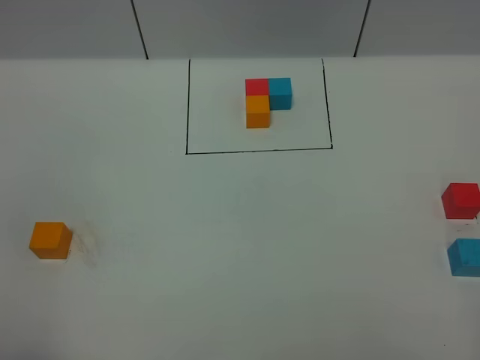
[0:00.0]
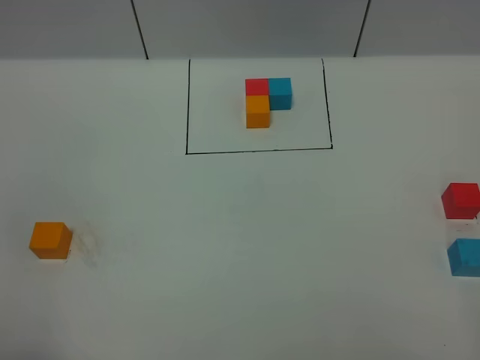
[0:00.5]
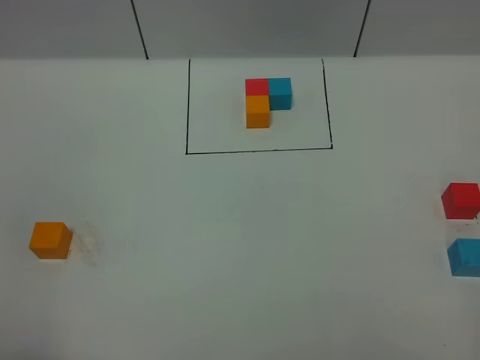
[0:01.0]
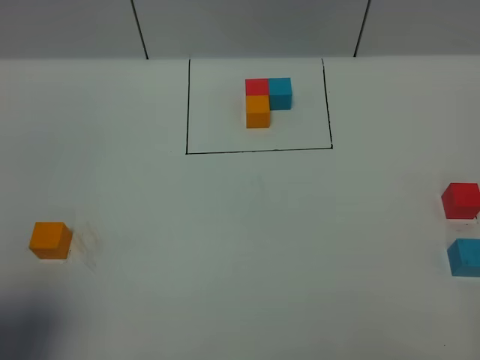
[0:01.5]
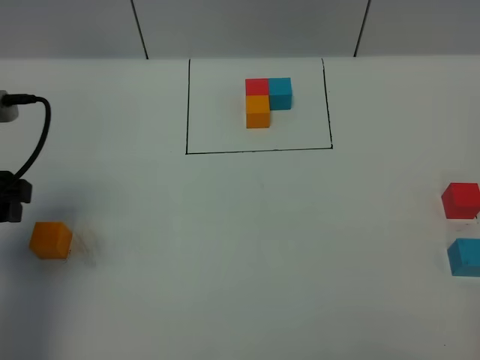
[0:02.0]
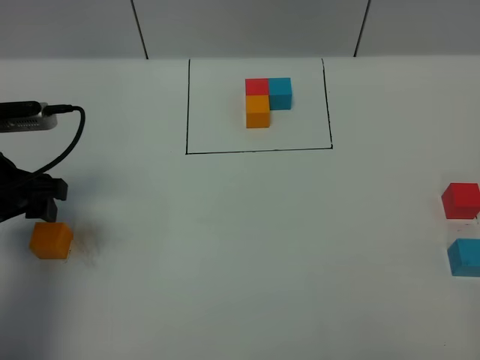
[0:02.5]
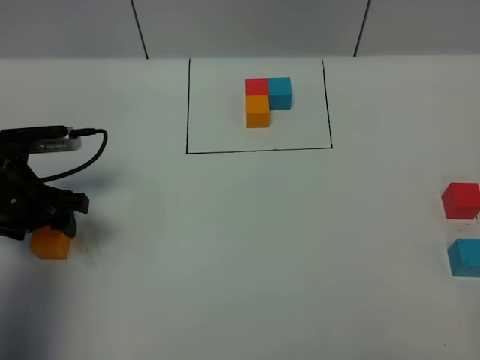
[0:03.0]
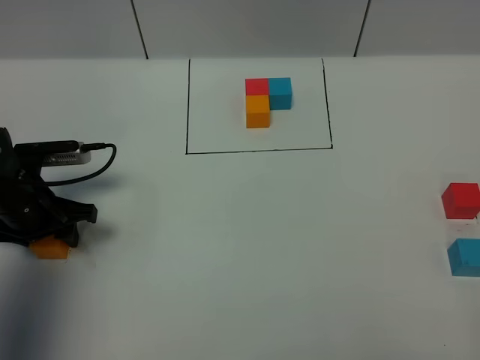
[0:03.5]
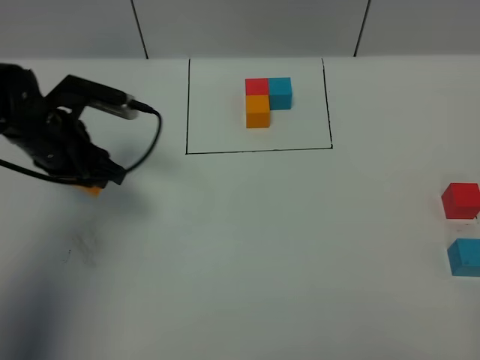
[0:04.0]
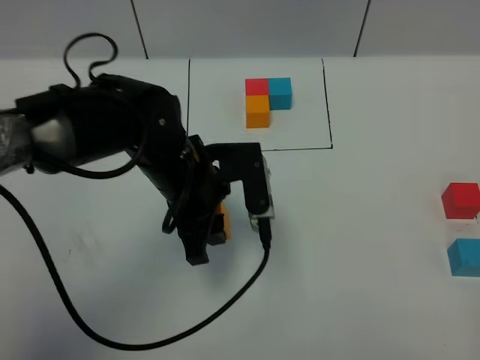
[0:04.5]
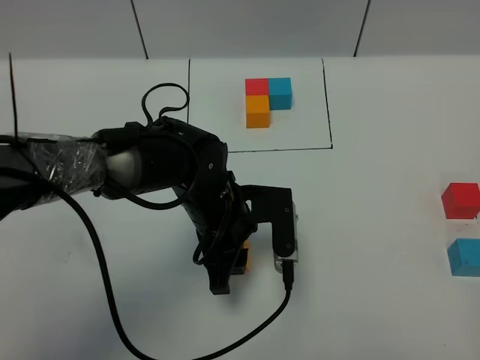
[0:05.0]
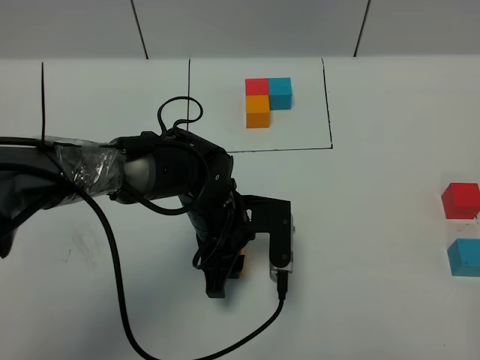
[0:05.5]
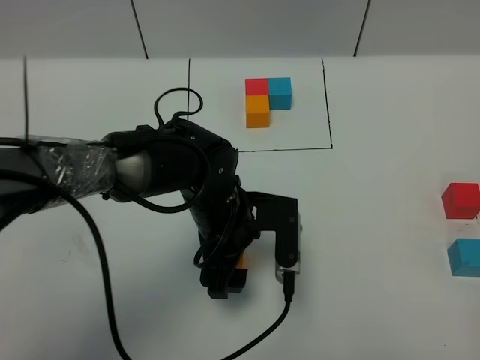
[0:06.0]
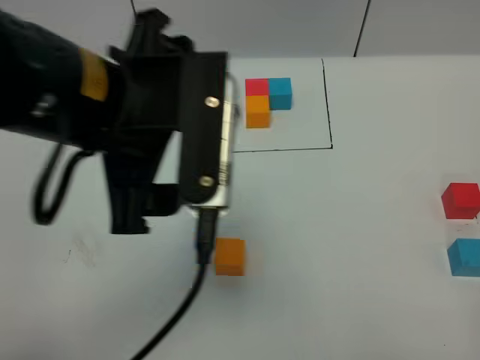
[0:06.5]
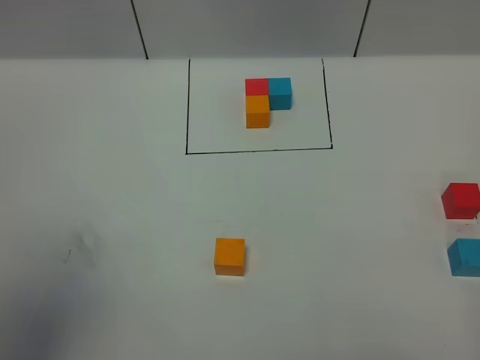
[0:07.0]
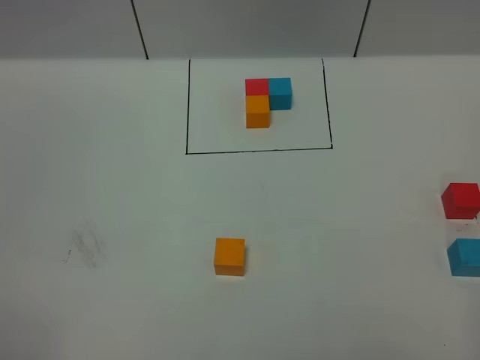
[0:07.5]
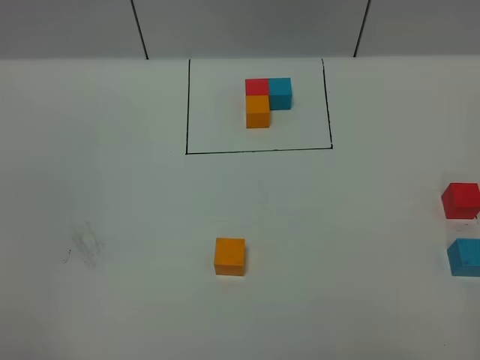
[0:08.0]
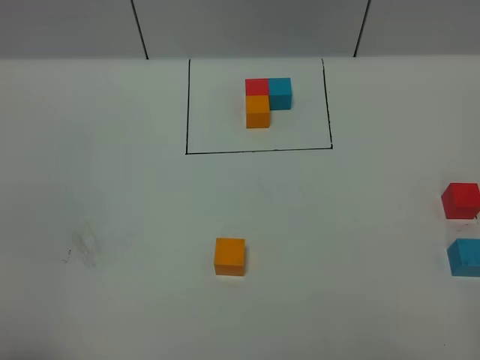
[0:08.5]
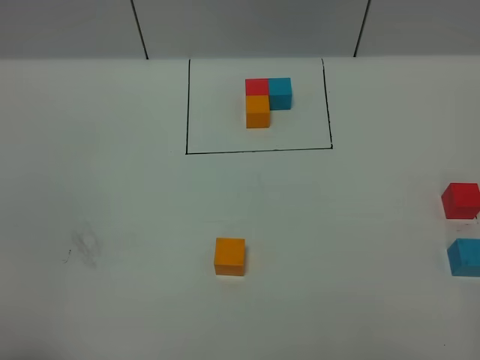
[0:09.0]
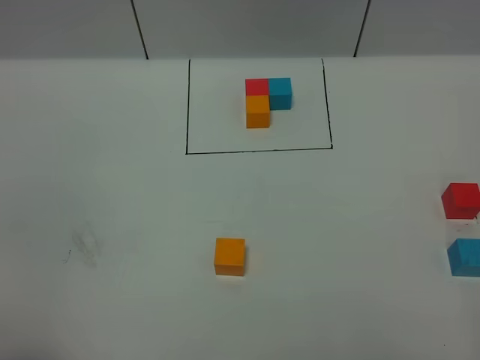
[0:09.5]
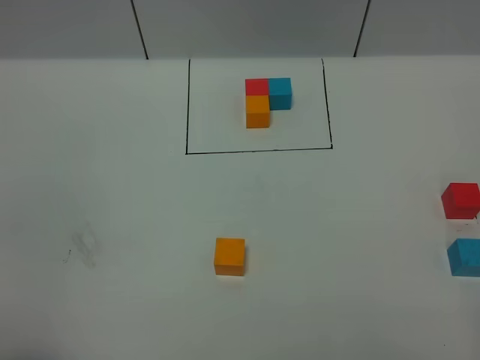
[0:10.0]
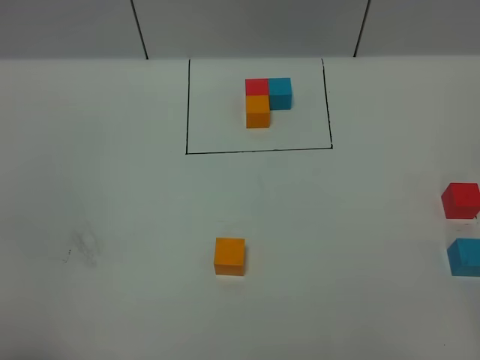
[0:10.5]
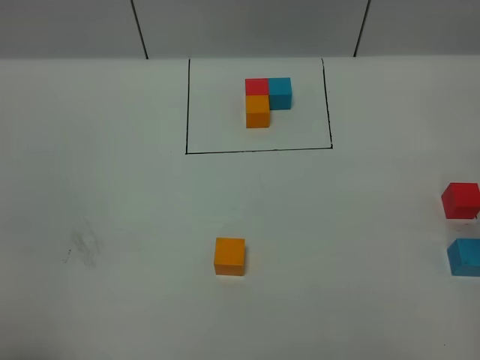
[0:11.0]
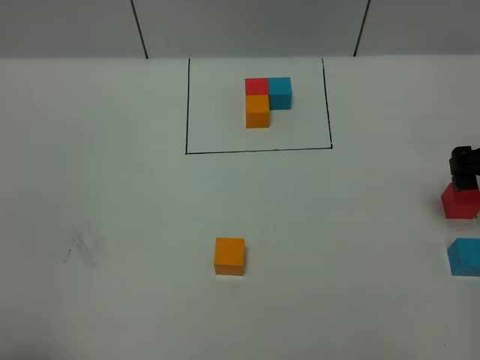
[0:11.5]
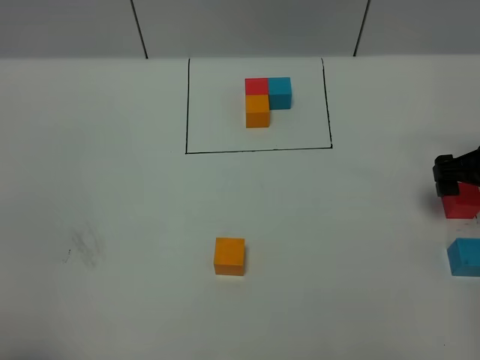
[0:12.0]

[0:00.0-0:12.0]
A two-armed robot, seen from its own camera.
Task of the whole recording: According to the building block template in front, assemble the scattered blocks together.
Step, 0:02.0 to 0:06.0: Put the orange cube in the center of the table.
0:00.0 to 0:02.0: The left gripper shifts some 25 cm forward.
0:02.0 to 0:04.0: The left gripper moves forward, downward and to the right, approximately 15 cm, and closes its fingers.
0:04.0 to 0:06.0: The left gripper shifts approximately 20 cm to the right and backward, and opens its fingers.
0:06.0 to 0:08.0: The left gripper moves backward, to the left and upward, approximately 40 cm.
0:10.0 to 0:12.0: The right gripper moves forward, some 30 cm, and opens its fingers.

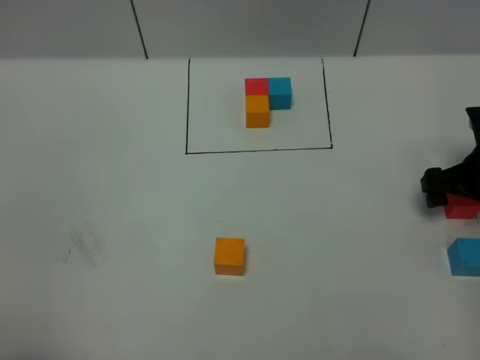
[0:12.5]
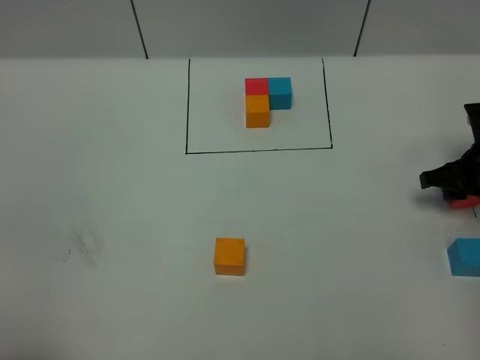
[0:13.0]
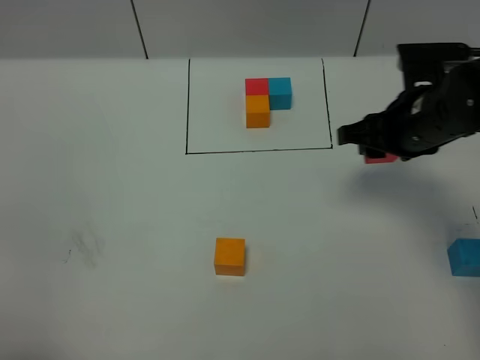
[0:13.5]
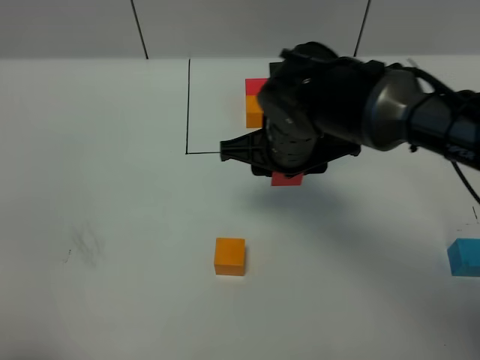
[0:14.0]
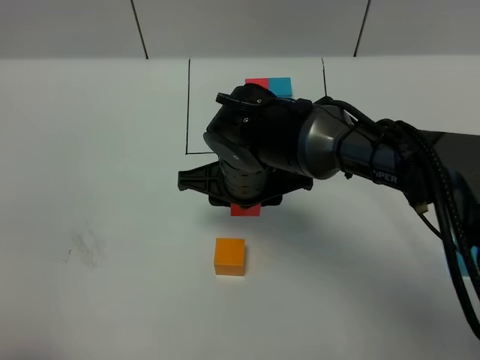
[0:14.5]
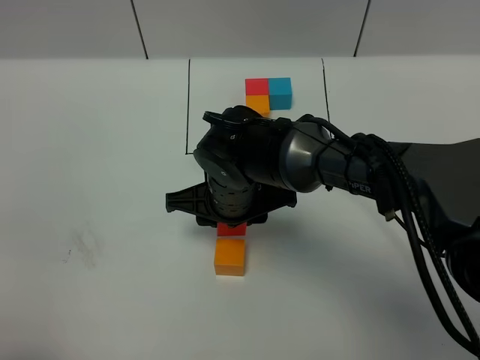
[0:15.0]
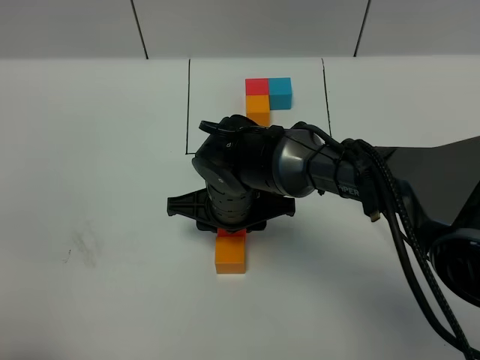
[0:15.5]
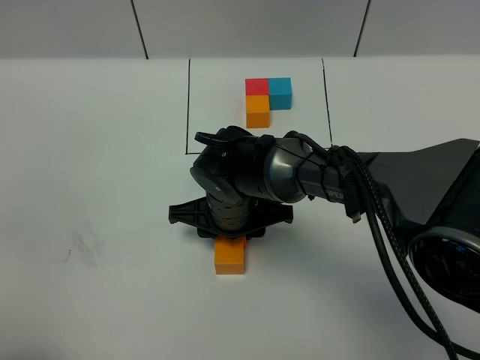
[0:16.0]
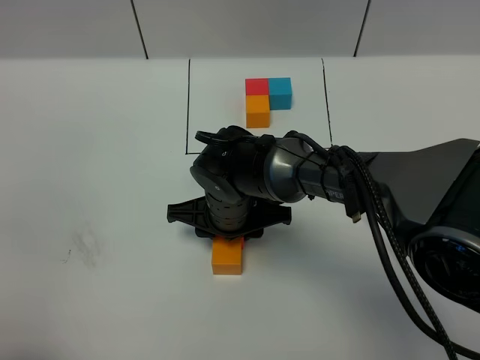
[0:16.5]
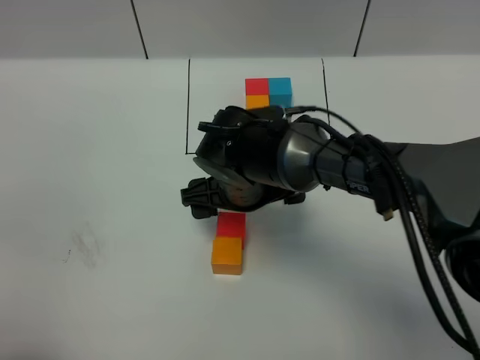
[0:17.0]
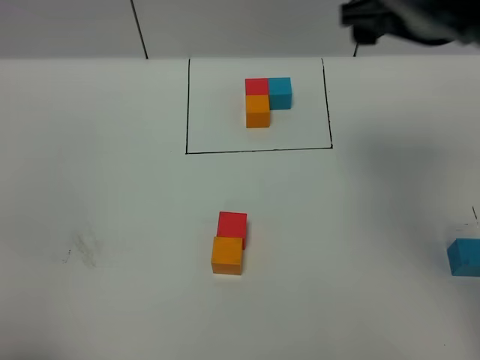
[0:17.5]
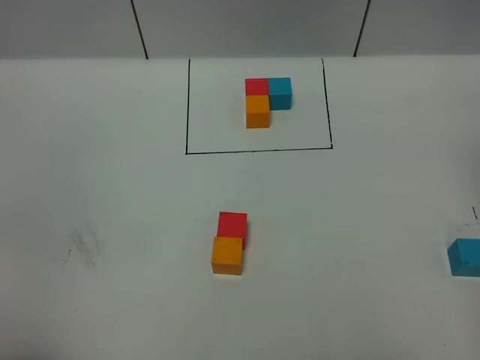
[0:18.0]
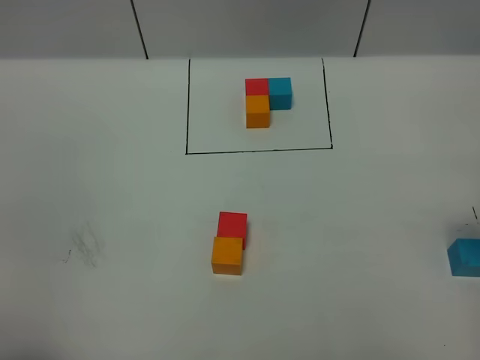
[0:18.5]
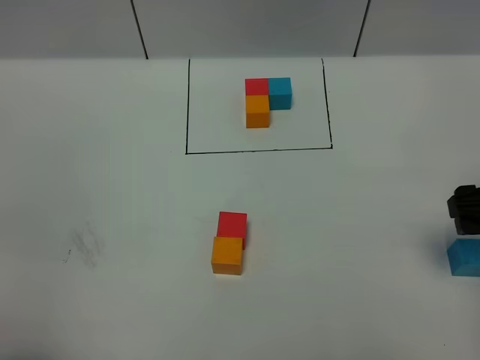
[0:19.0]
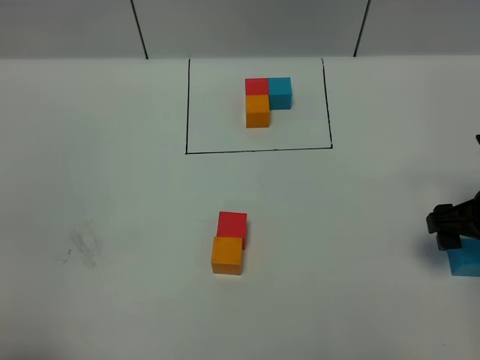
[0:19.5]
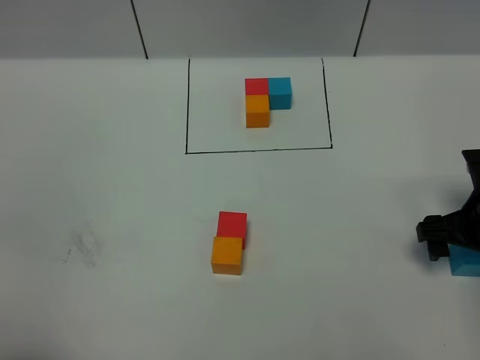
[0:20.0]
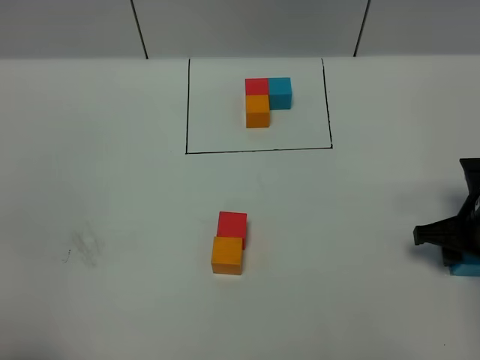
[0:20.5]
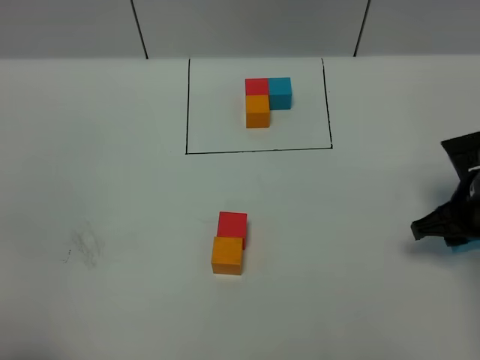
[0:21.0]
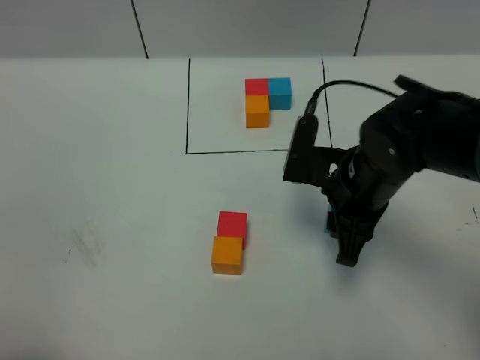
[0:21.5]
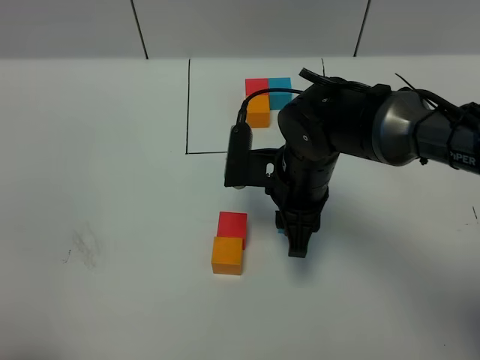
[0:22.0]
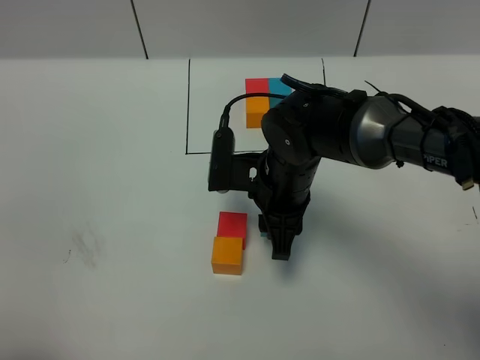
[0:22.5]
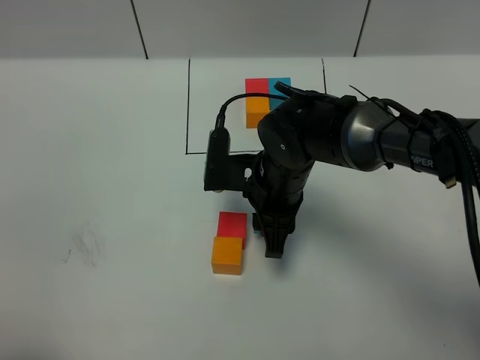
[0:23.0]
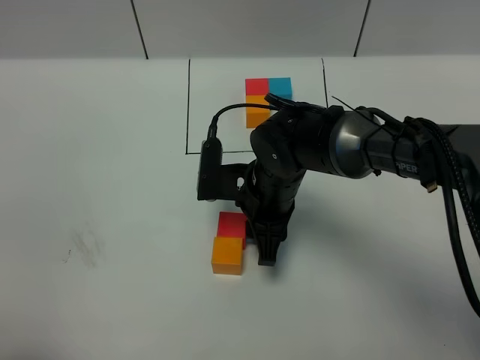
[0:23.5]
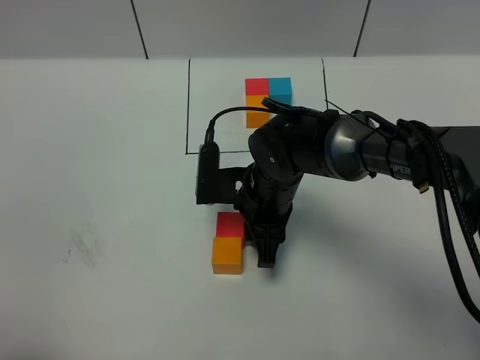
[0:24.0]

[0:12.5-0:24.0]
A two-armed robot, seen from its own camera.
Task of the whole recording: According to the building block template in front, assemble the scattered blocks together.
Step, 0:12.5 to 0:17.0: Put the red cube in the front of the orange cube.
0:12.5 to 0:14.5: The right gripper is displaced to the left by some 30 cm, and closes its fingers.
0:14.5 to 0:16.5: The right gripper moves downward, approximately 5 cm.
0:16.5 to 0:18.5: The right gripper goes roughly 40 cm to the right and upward, and opens its fingers.
0:18.5 to 0:20.0: The right gripper travels downward by roughly 15 cm.
0:20.0 to 0:22.0: The right gripper heads to the left, covering some 25 cm, and closes up.
0:22.0 to 0:24.0: The right gripper moves roughly 5 cm.

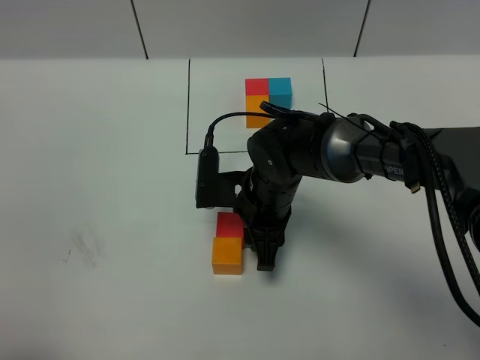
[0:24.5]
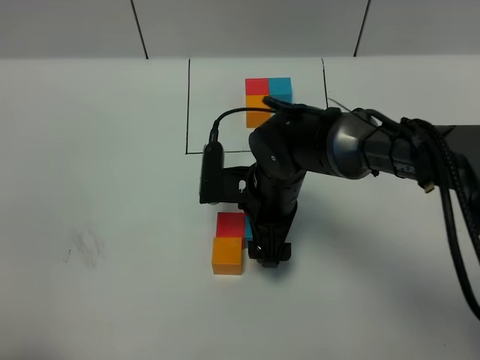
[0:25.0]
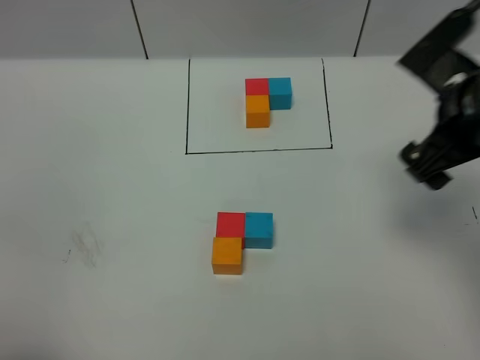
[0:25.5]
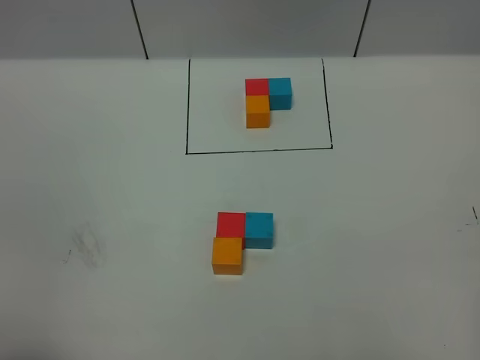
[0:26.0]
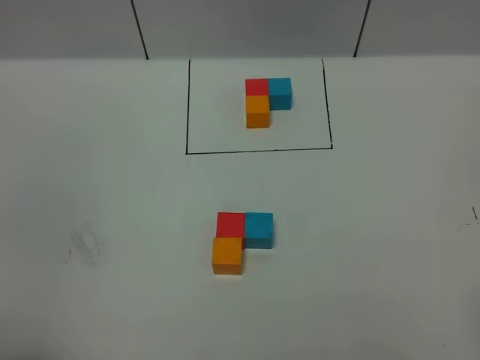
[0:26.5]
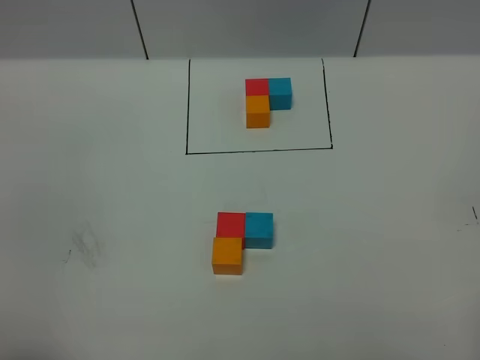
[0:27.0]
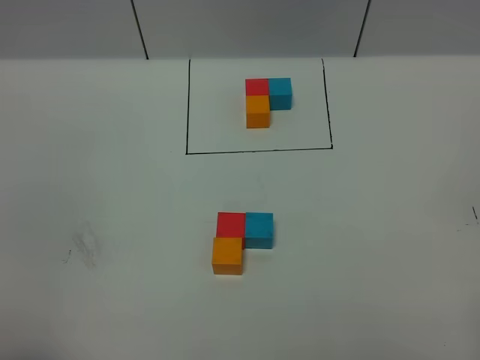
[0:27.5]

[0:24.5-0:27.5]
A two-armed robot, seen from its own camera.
Task of the whole recording: According to the building block template in front, assemble the scattered blocks together.
0:24.5 to 0:26.0: The right gripper shifts some 50 cm to the right, upward and backward, and opens.
